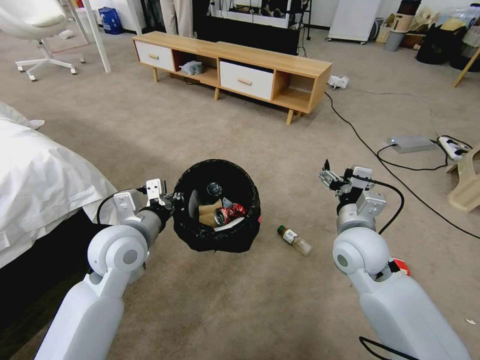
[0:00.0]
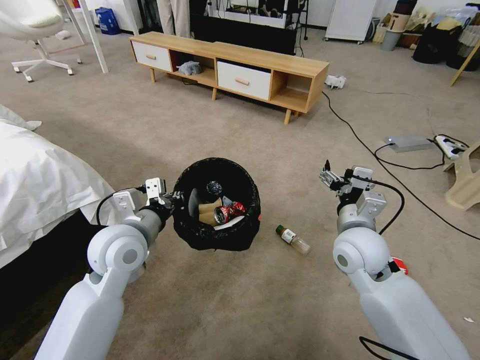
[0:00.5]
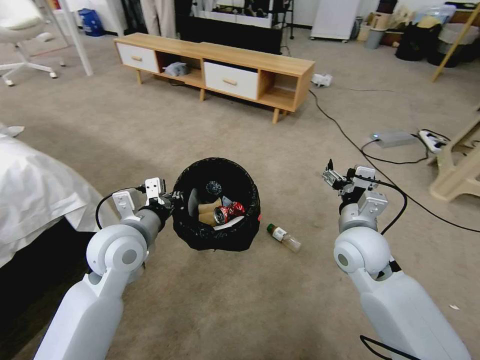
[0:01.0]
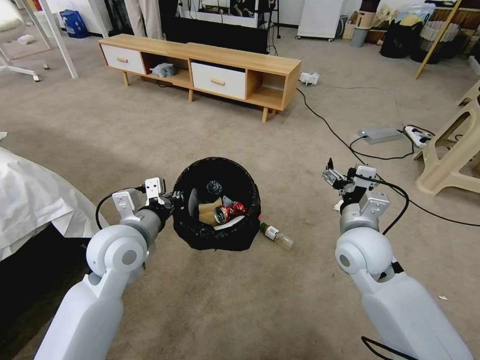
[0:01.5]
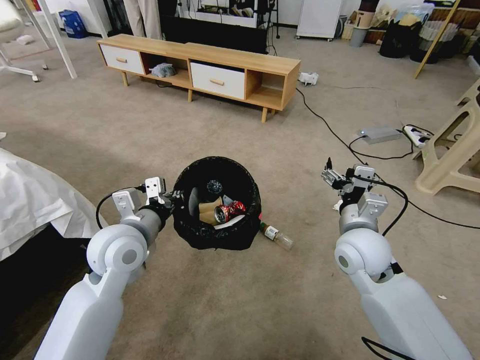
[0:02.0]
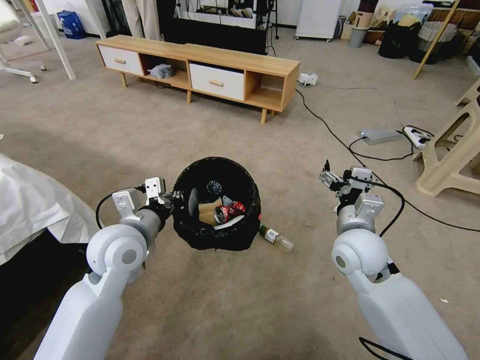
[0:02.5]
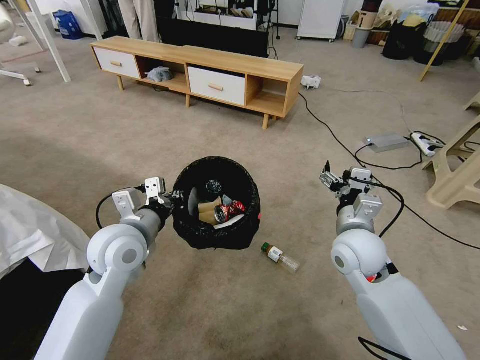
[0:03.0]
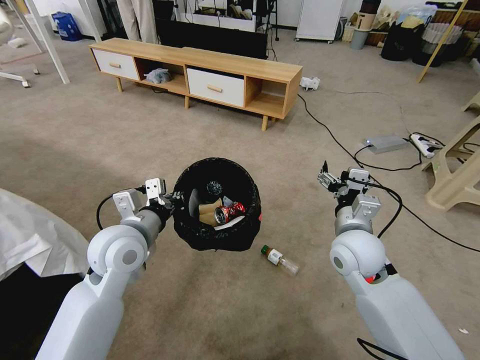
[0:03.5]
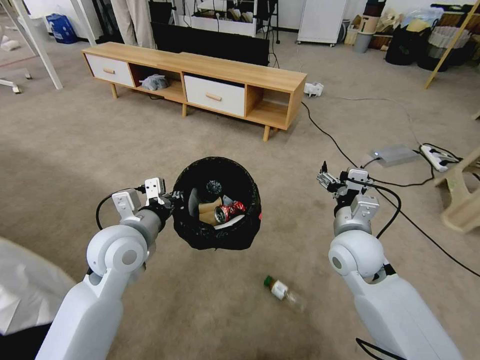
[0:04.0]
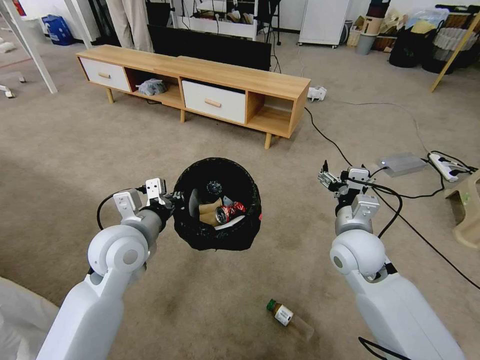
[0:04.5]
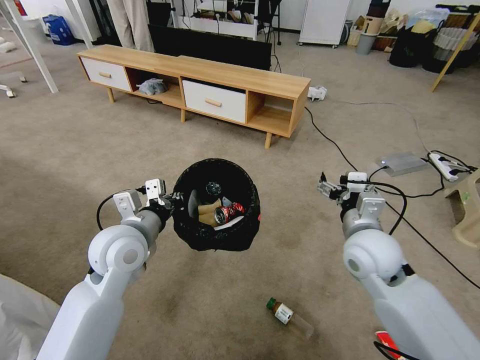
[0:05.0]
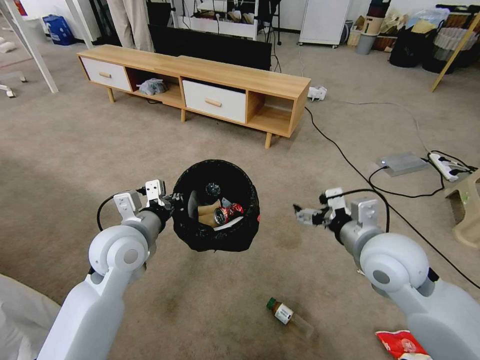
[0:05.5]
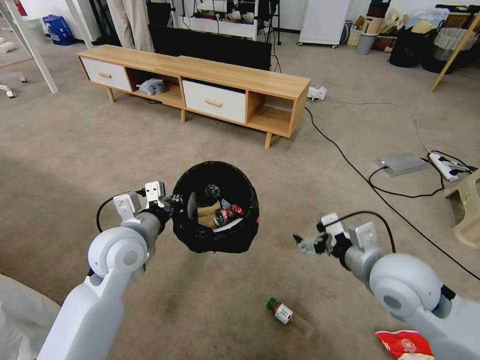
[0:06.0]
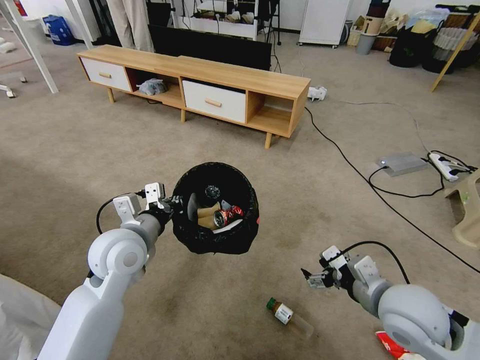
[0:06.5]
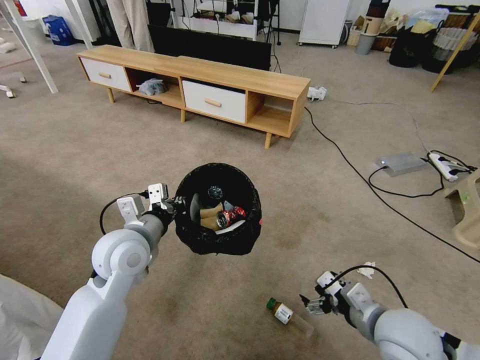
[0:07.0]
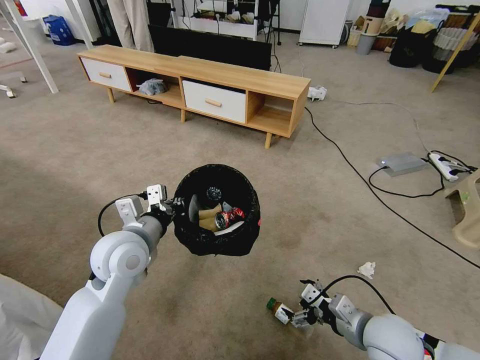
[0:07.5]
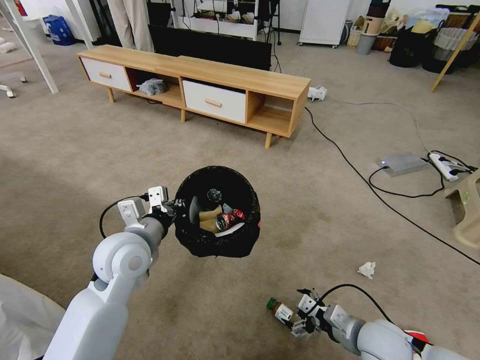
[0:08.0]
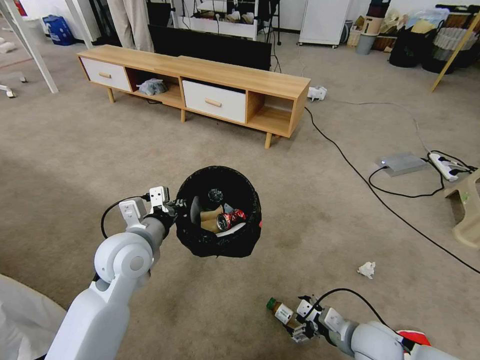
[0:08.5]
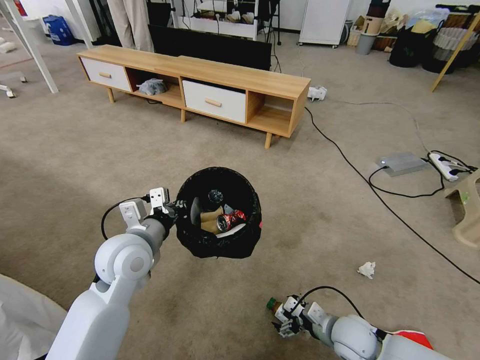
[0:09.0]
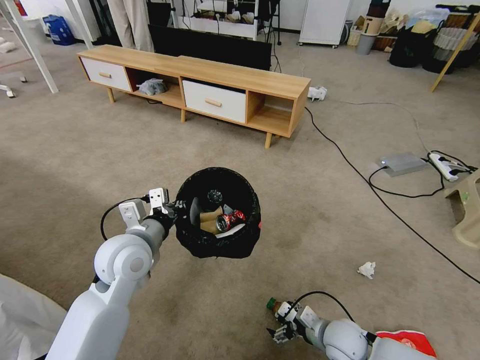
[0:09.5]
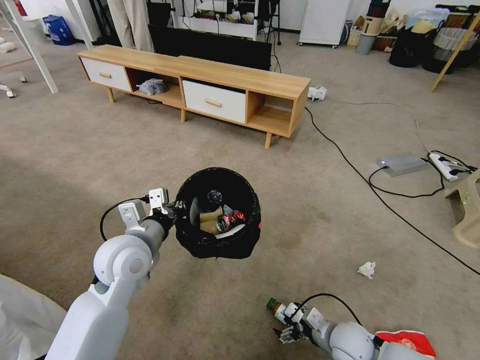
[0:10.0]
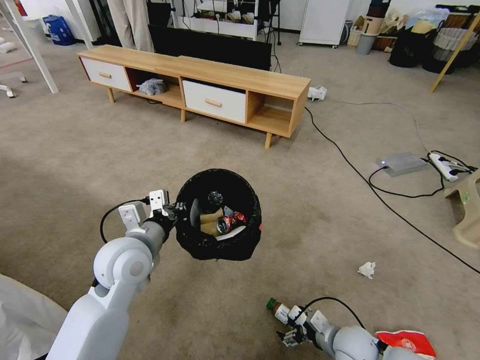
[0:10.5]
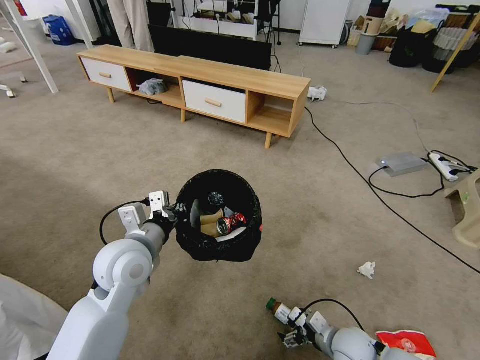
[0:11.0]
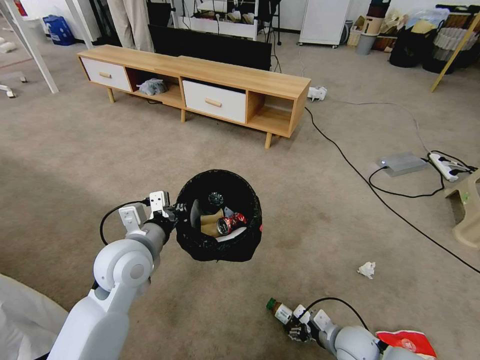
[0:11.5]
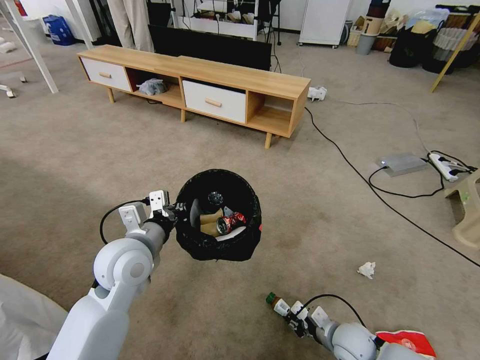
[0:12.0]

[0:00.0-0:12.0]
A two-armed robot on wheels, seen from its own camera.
Task of the whole recording: Pick up the trash bin and place the garbage on the floor into it.
0:04.0 to 0:06.0: The right gripper moves backward, about 10 cm.
0:06.0 to 0:08.0: The right gripper moves downward, approximately 15 cm.
0:08.0 to 0:10.0: The right gripper heads downward, covering about 10 cm.
0:10.0 to 0:12.0: The right gripper closes.

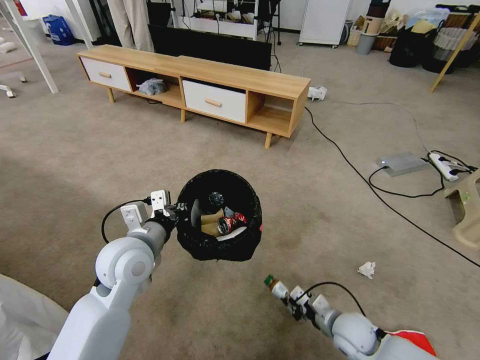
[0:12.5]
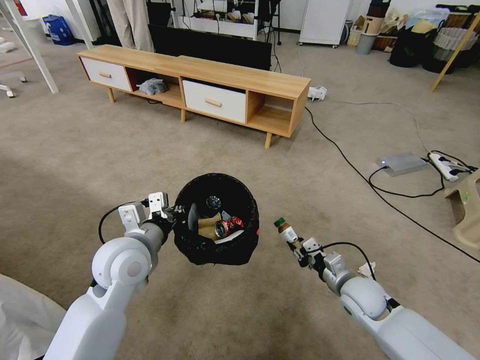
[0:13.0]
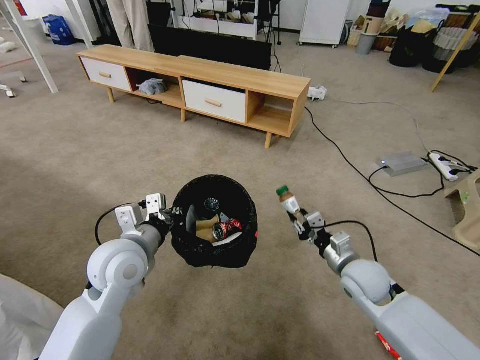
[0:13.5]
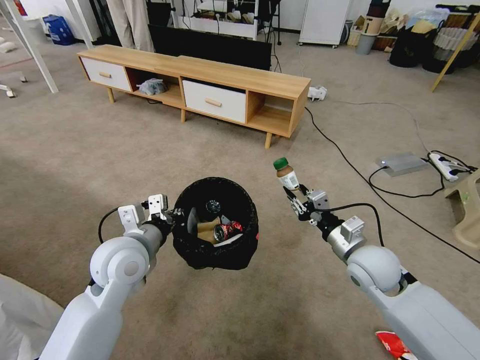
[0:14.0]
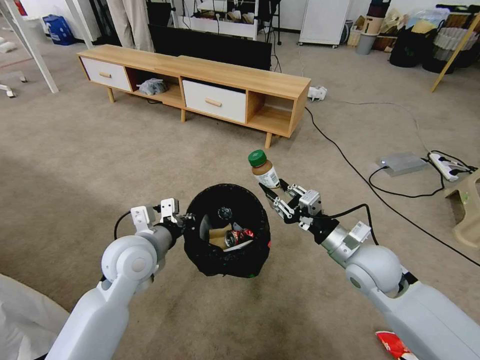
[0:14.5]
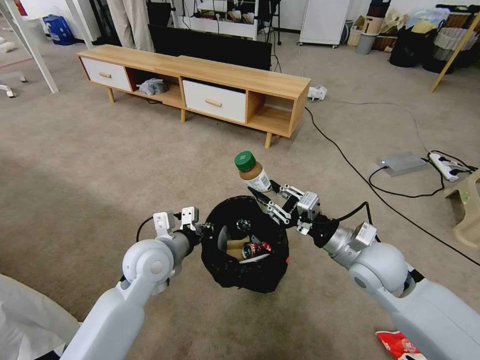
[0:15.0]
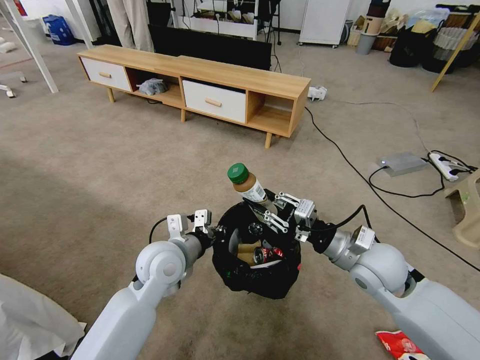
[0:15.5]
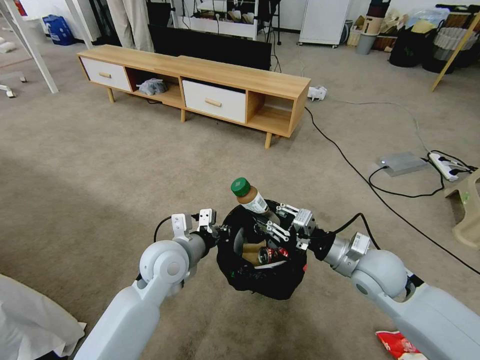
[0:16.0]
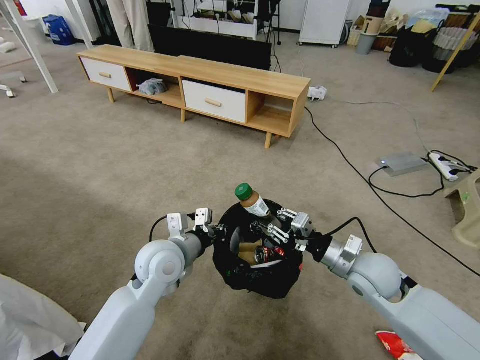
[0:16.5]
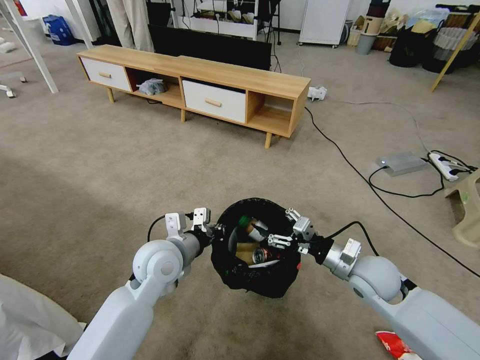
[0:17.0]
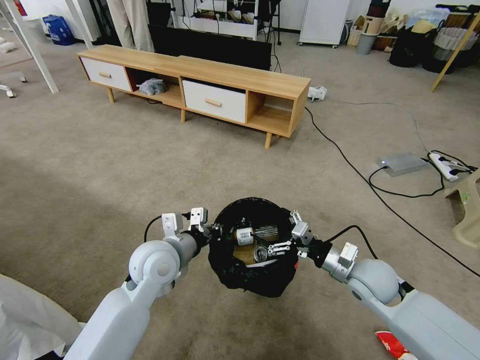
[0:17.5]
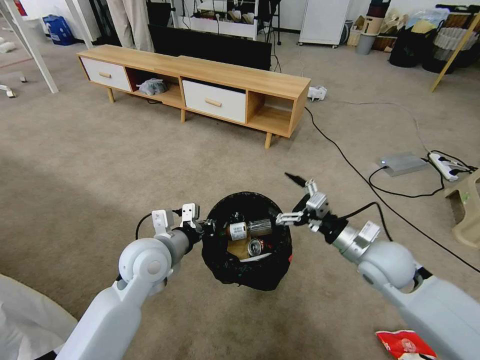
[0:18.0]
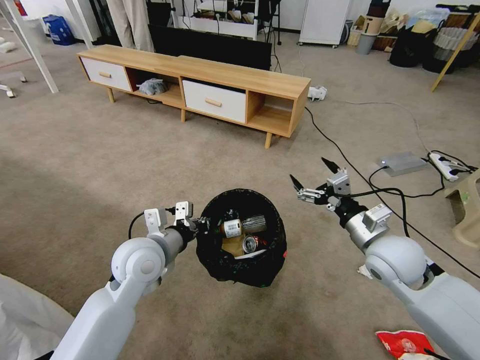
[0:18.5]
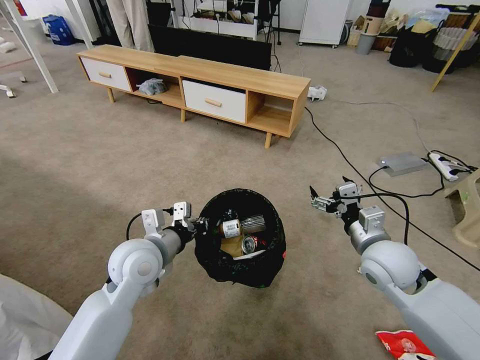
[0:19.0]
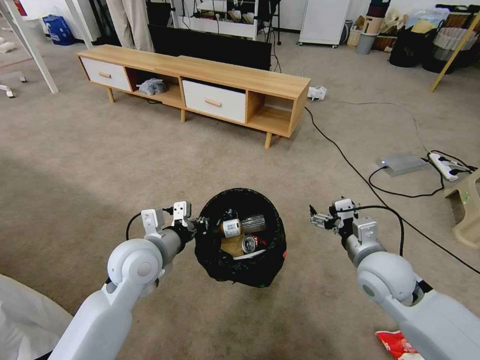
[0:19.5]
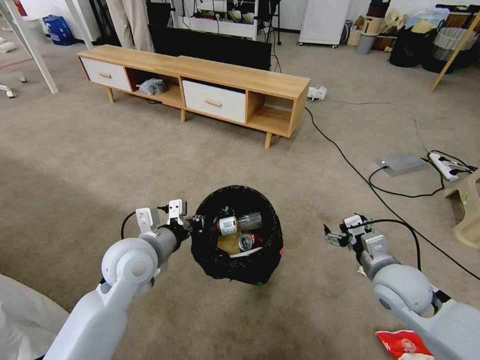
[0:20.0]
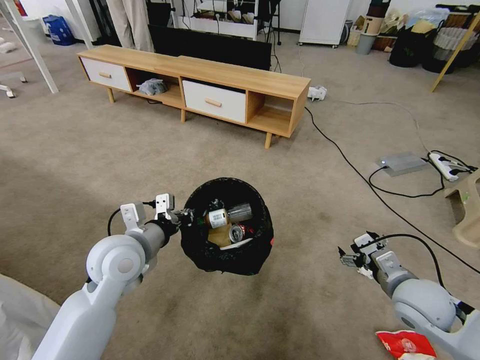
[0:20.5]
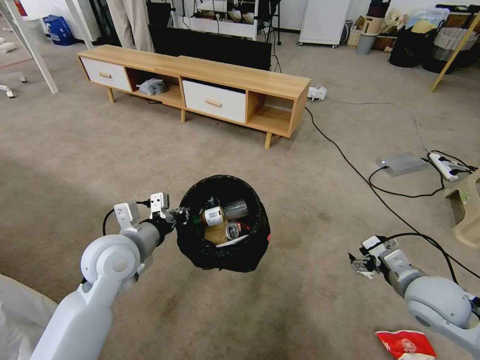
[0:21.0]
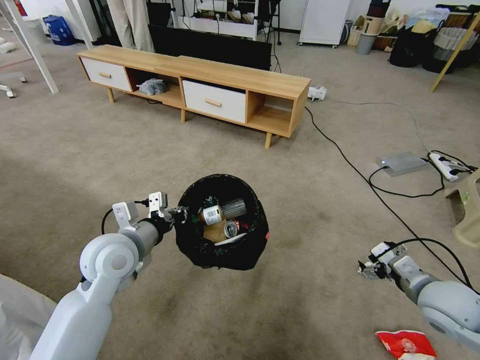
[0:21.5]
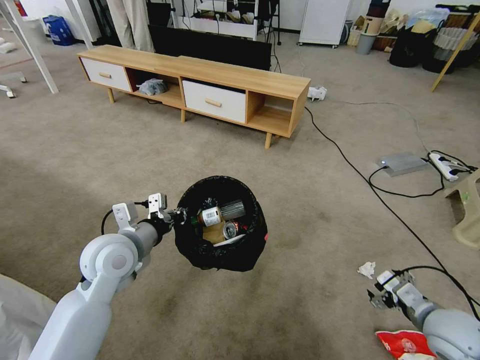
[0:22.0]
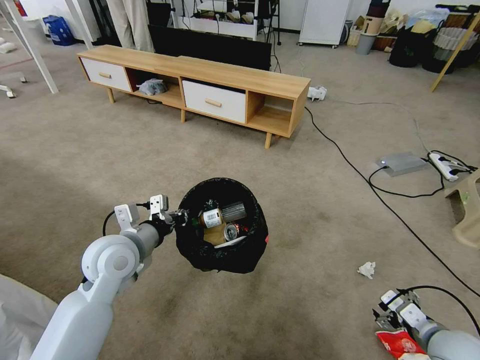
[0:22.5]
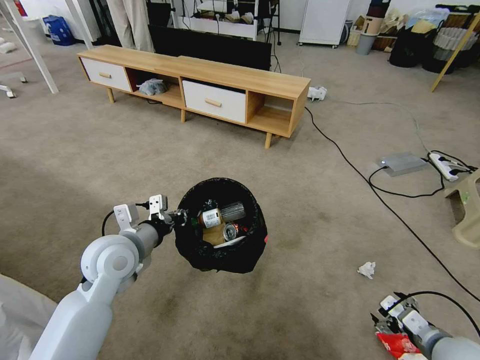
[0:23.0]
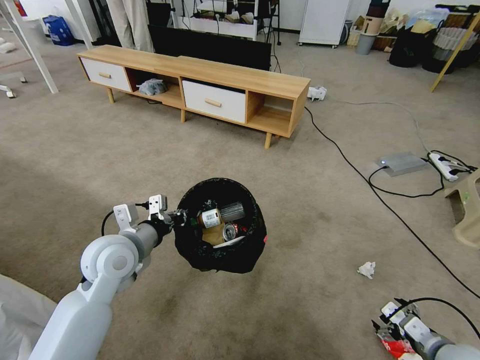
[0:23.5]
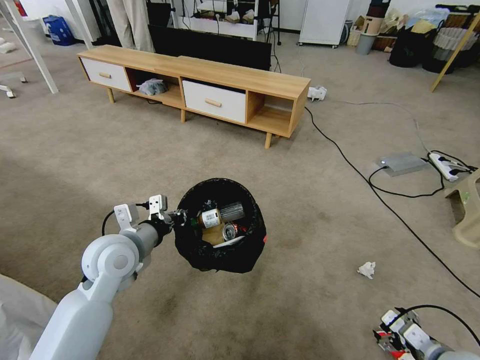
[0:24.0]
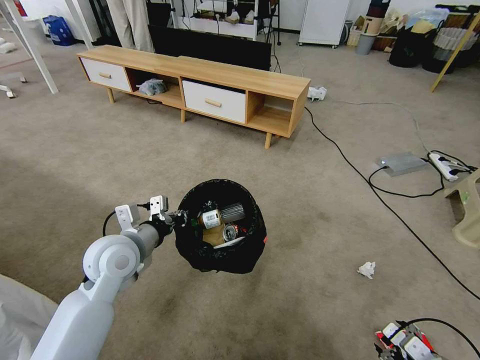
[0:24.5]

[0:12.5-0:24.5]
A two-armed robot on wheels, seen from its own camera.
Task of the whole recording: Pick up the trash bin and place the garbage on the floor into it.
0:12.5 to 0:14.5: The right gripper heads upward, covering approximately 20 cm.
0:14.5 to 0:16.5: The left gripper ends up approximately 5 cm from where it was.
0:16.5 to 0:18.5: The right gripper shifts roughly 5 cm upward, and opens up.
0:18.5 to 0:20.5: The right gripper heads downward, backward and to the right, covering approximately 10 cm.
0:20.5 to 0:22.5: The right gripper goes approximately 15 cm backward, downward and to the right.
0:22.5 to 0:24.5: The right gripper moves backward, some 5 cm.

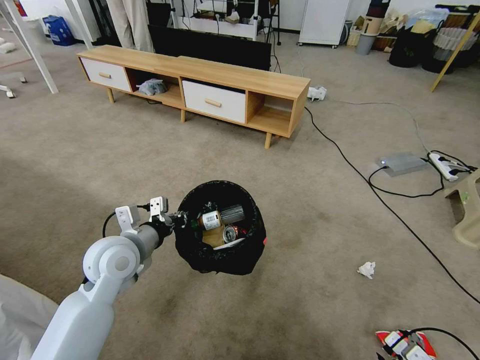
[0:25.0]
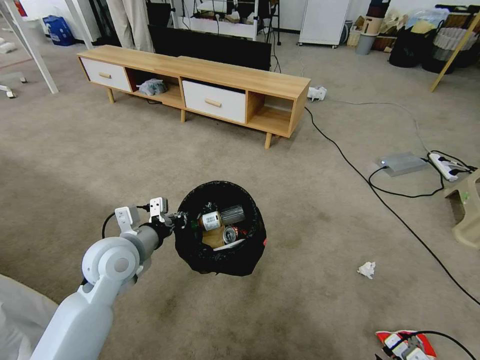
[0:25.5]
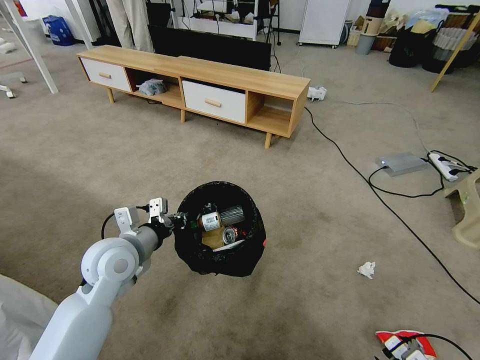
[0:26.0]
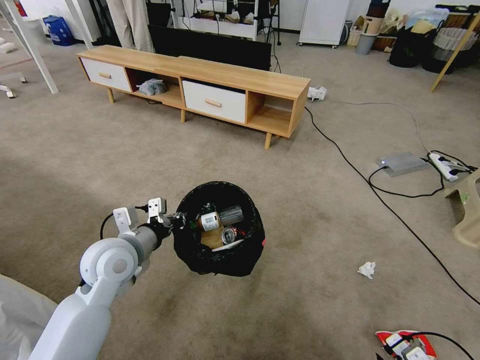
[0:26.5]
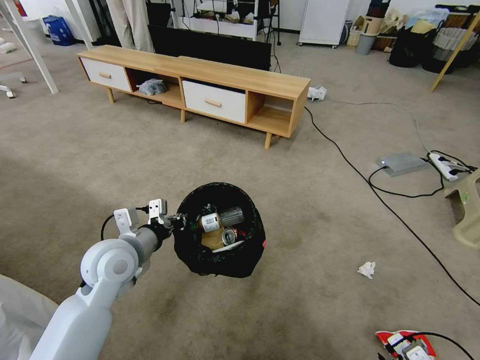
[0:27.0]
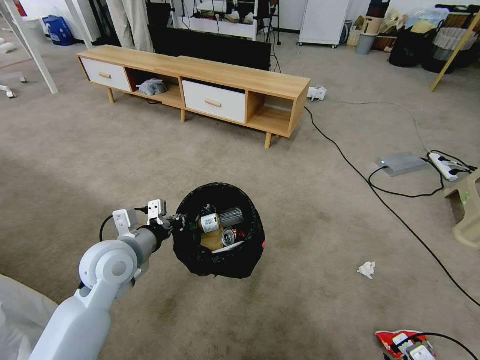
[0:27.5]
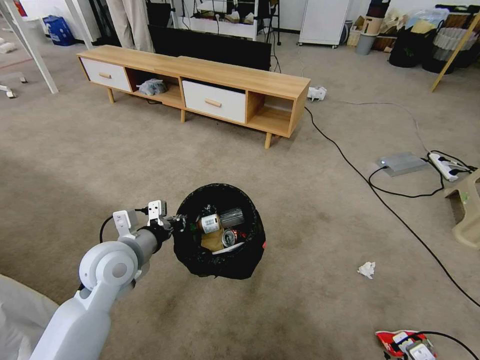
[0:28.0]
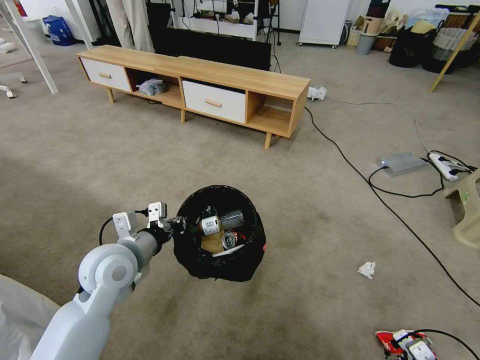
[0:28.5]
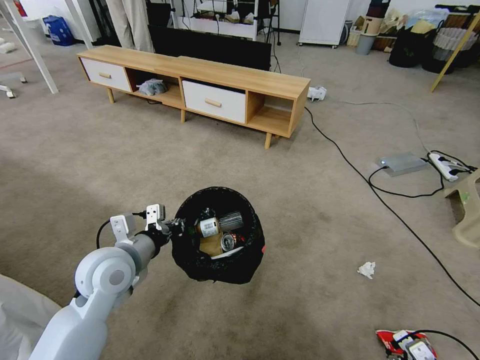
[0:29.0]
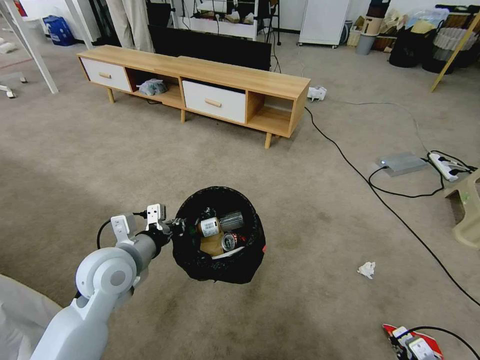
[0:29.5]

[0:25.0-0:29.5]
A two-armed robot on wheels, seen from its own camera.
Task of the whole recording: Pick up the trash bin and place the garbage on the floor into it.
0:25.0 to 0:27.0: The grippers make only small movements.
0:27.0 to 0:29.5: The right gripper closes.
